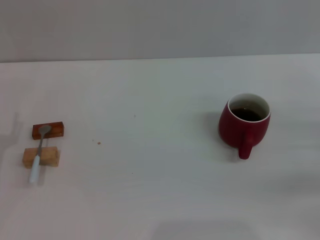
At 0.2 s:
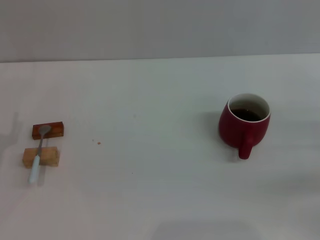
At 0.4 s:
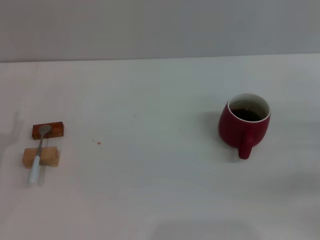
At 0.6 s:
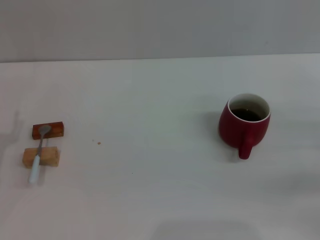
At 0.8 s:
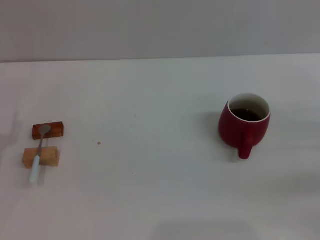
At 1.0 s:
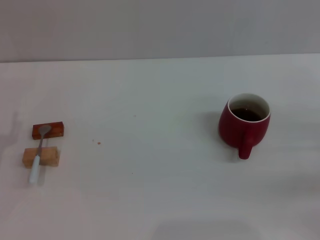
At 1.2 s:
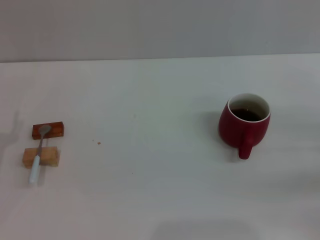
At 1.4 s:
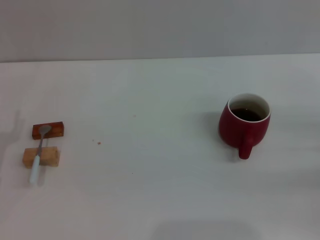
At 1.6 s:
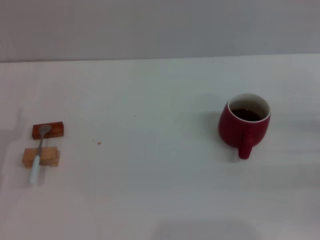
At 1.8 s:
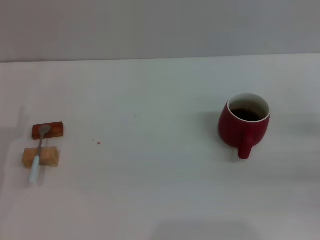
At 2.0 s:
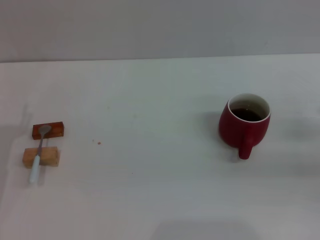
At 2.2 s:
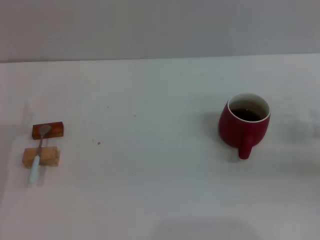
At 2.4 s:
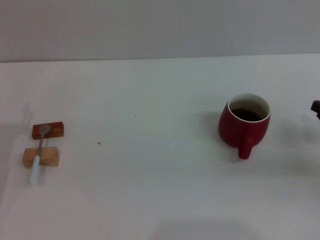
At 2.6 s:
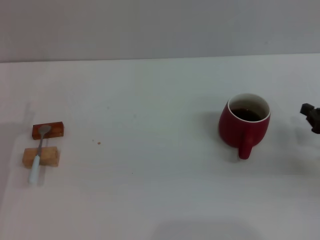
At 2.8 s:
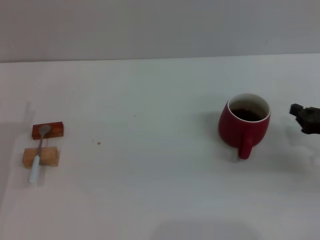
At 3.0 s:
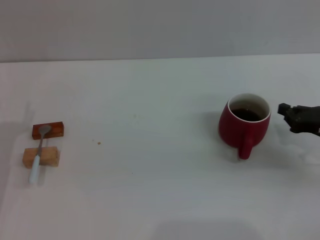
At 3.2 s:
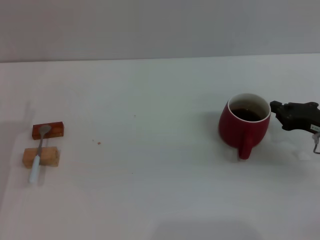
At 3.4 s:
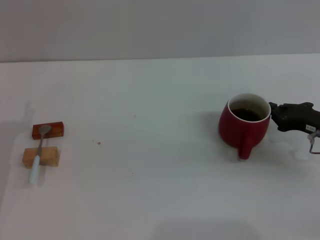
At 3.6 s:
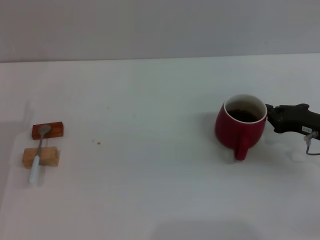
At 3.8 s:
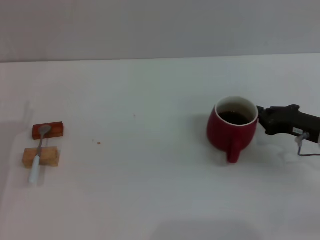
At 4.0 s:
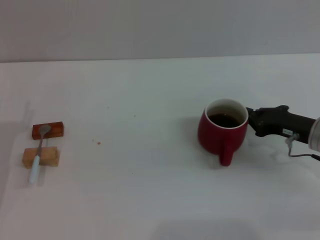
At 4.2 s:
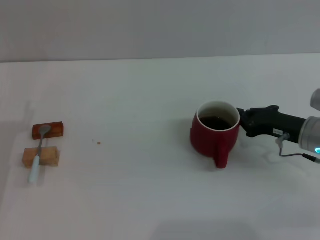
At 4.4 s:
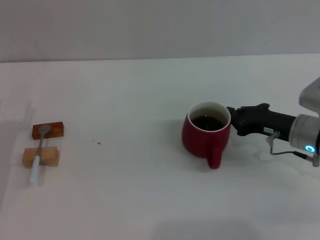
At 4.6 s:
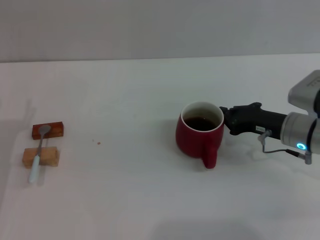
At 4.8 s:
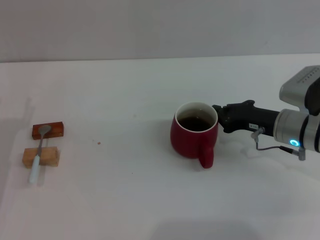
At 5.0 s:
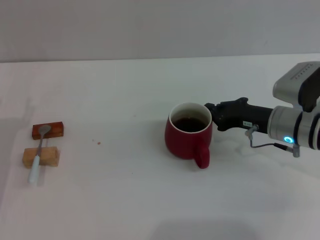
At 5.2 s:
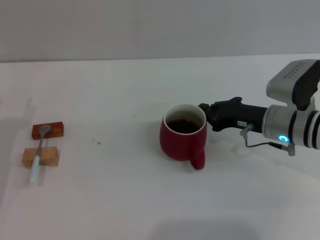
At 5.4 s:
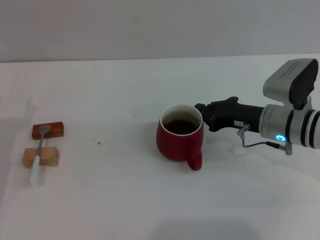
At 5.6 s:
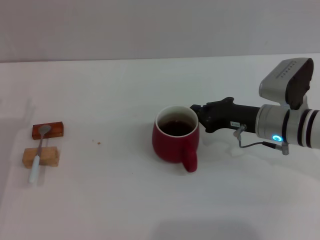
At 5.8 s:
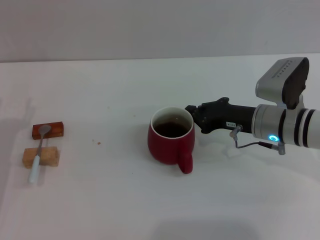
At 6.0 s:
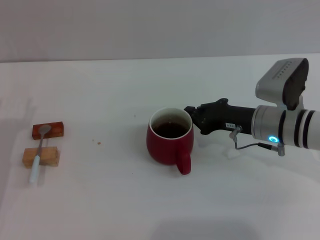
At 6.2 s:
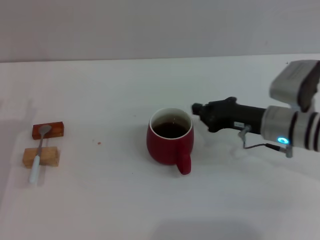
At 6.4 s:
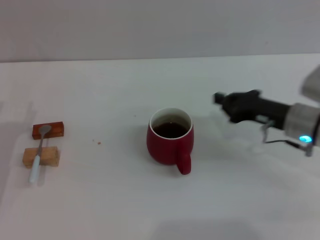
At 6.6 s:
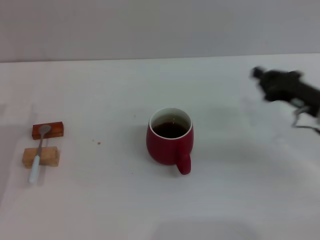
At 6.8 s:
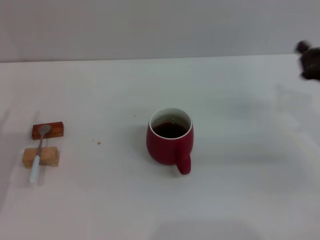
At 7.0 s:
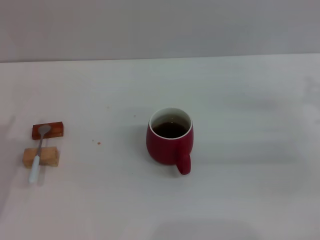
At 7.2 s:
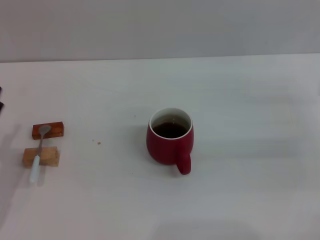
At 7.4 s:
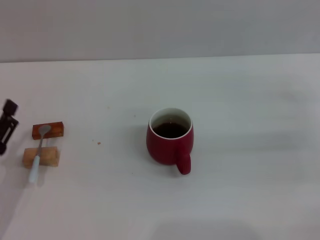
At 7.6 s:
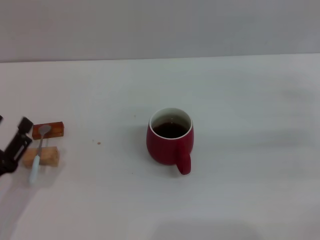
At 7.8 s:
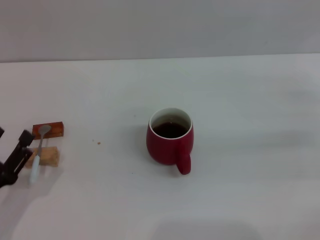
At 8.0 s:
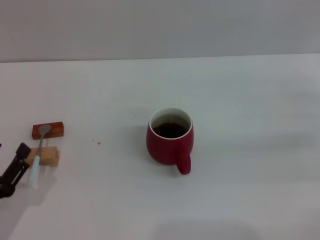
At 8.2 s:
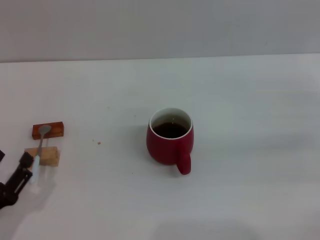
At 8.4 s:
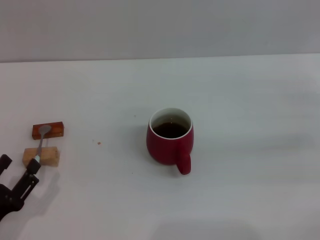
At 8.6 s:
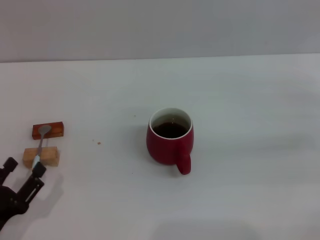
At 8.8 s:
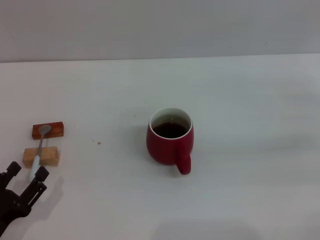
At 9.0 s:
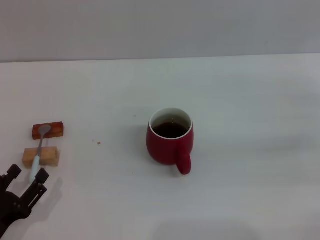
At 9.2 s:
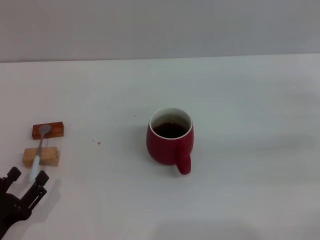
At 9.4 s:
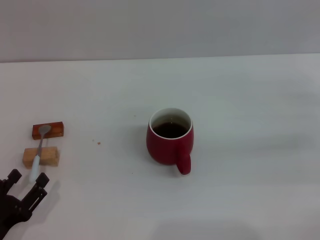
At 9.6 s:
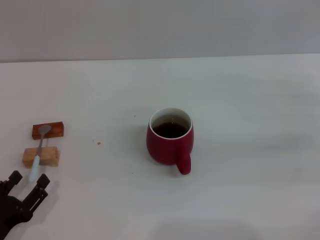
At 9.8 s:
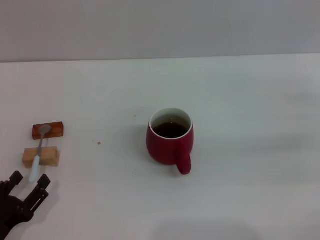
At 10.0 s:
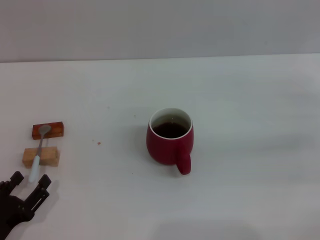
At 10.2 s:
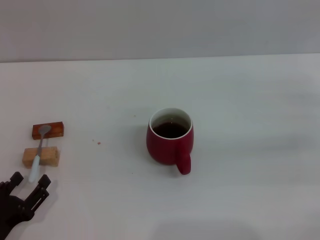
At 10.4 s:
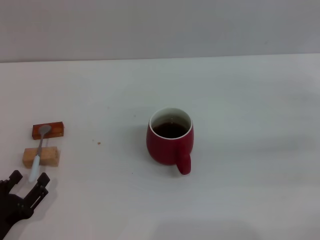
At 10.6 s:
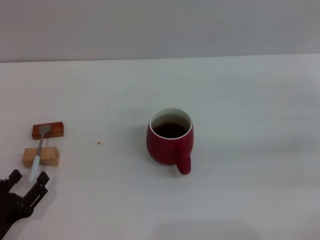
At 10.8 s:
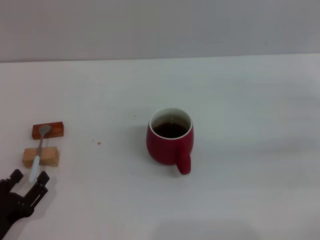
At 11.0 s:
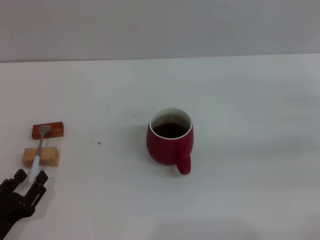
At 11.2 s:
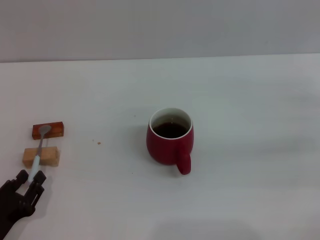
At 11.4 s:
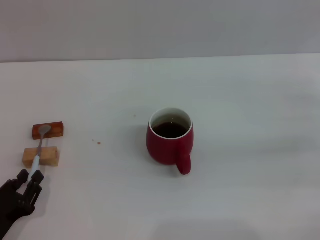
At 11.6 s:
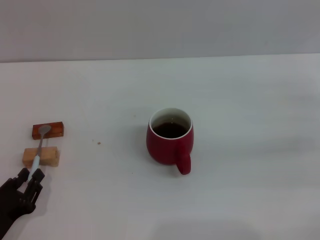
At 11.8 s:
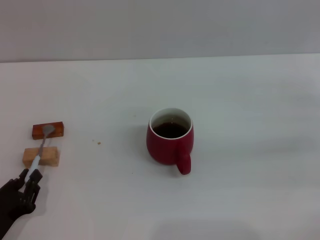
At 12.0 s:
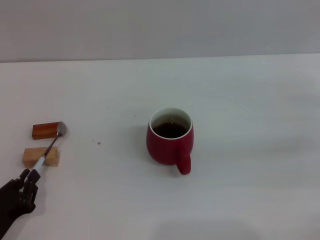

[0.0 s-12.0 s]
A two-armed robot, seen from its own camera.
Task of the whole recording: Move the red cup to the center, lift the blue spoon, stir it three times in the cup, and put the spoon into the cup.
Step, 0.0 to 6.2 s: Move the cup with coffee to the center of view with the right gripper.
1.6 to 3.0 s: The right gripper shifts roughly 5 cm to the left.
3.0 to 4.4 s: The right gripper is displaced to the left by about 10 cm.
4.4 to 6.0 s: The right gripper moves to the left, some 5 cm.
6.0 to 7.6 s: The right gripper travels to the right by roughly 20 cm, and opens its fingers; the left gripper moves backward and downward, approximately 10 cm.
7.6 to 10.4 s: The grippers make only small movements.
10.4 to 12.0 s: The left gripper closes its fingers.

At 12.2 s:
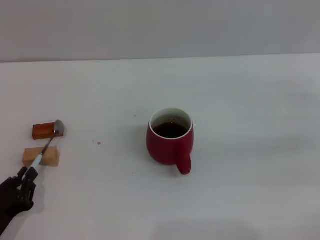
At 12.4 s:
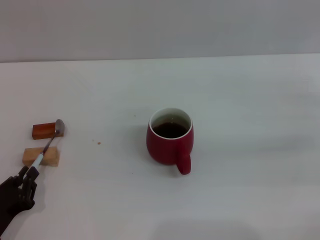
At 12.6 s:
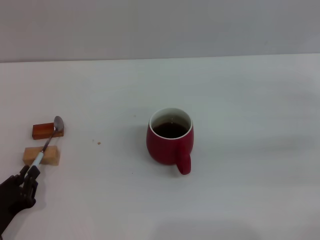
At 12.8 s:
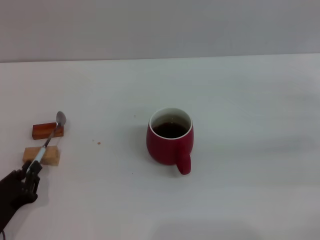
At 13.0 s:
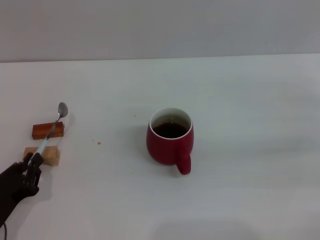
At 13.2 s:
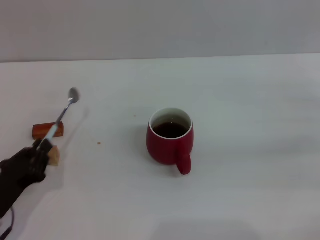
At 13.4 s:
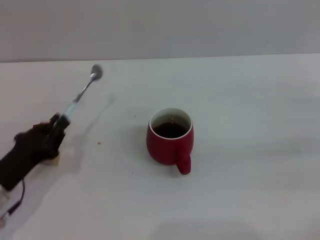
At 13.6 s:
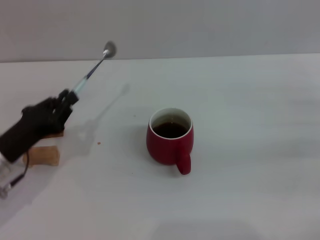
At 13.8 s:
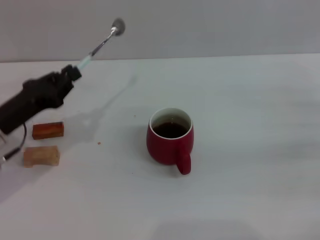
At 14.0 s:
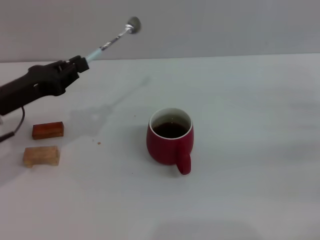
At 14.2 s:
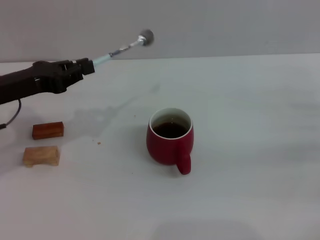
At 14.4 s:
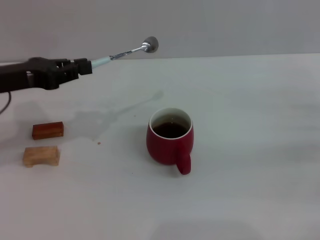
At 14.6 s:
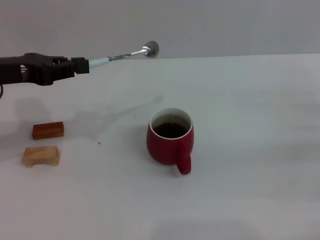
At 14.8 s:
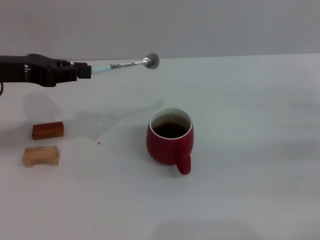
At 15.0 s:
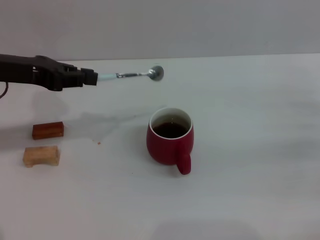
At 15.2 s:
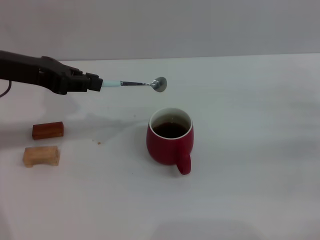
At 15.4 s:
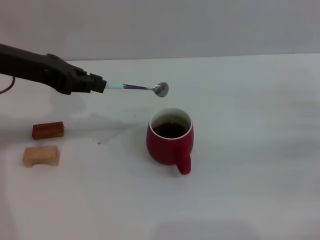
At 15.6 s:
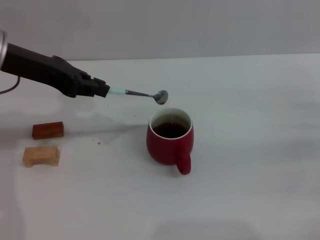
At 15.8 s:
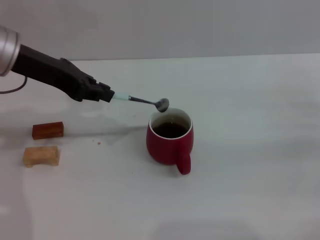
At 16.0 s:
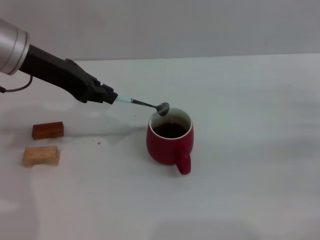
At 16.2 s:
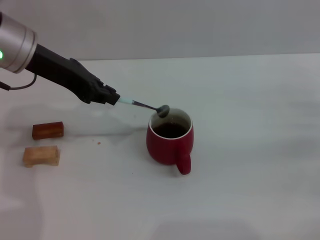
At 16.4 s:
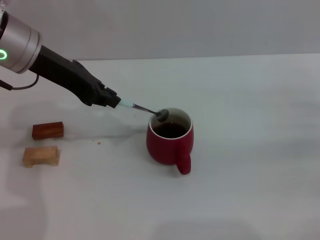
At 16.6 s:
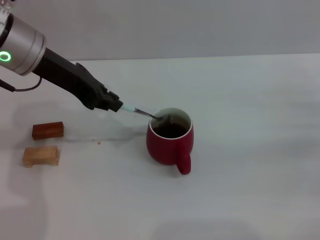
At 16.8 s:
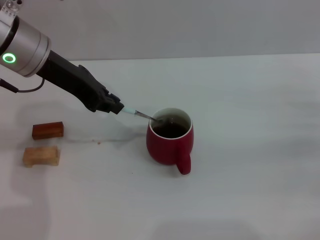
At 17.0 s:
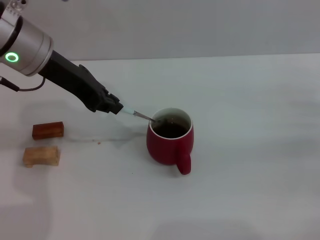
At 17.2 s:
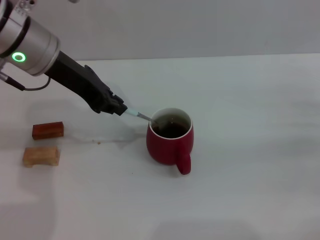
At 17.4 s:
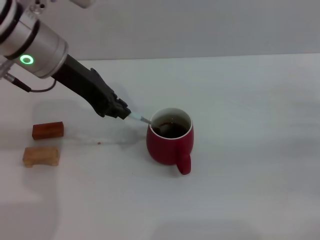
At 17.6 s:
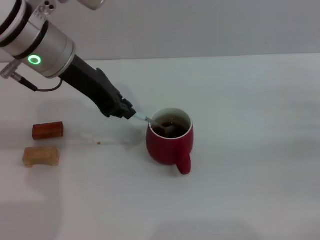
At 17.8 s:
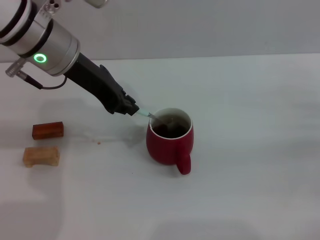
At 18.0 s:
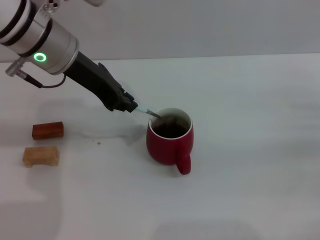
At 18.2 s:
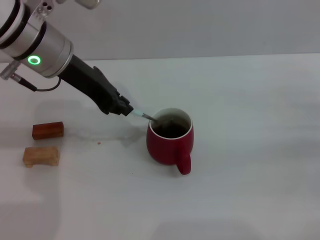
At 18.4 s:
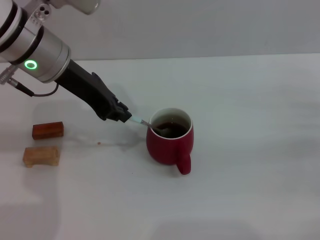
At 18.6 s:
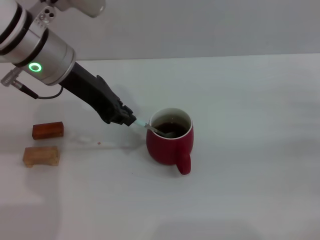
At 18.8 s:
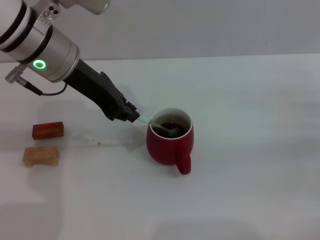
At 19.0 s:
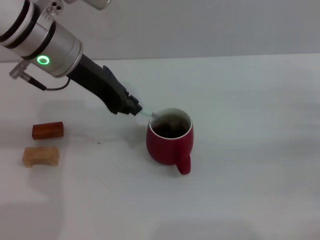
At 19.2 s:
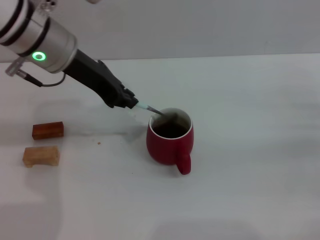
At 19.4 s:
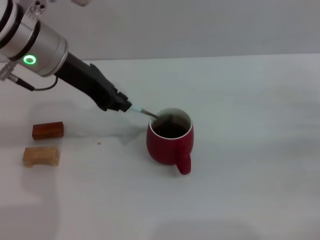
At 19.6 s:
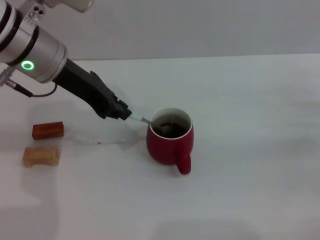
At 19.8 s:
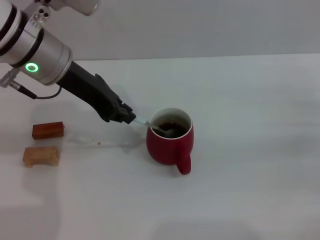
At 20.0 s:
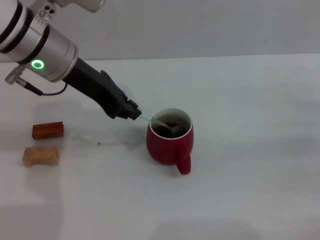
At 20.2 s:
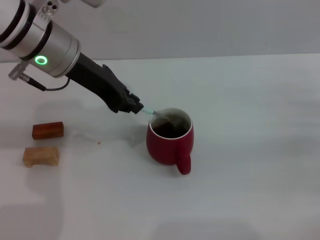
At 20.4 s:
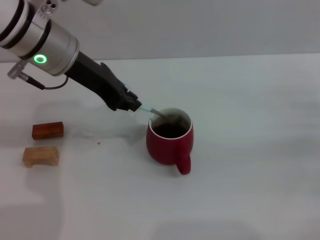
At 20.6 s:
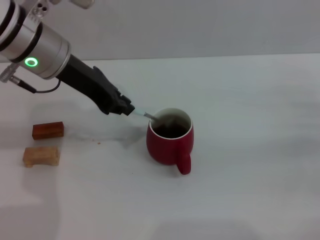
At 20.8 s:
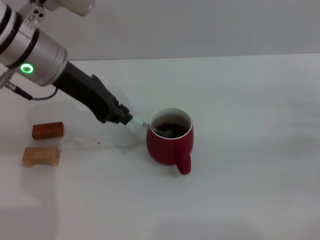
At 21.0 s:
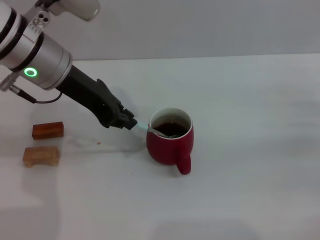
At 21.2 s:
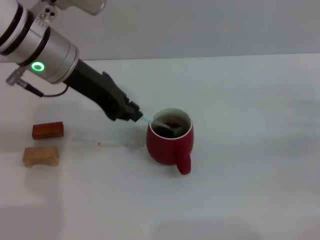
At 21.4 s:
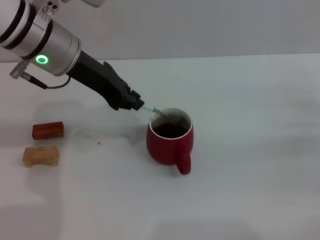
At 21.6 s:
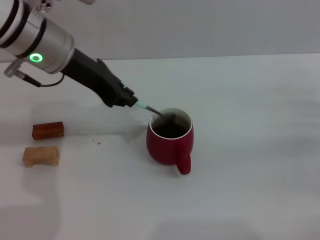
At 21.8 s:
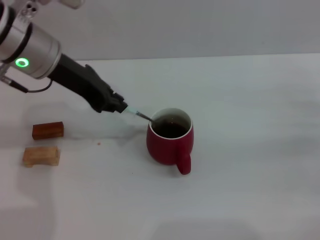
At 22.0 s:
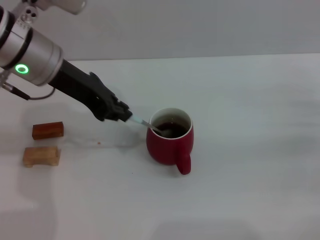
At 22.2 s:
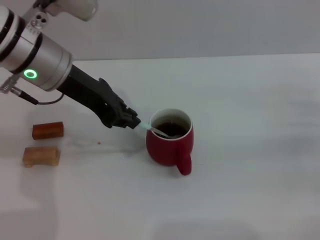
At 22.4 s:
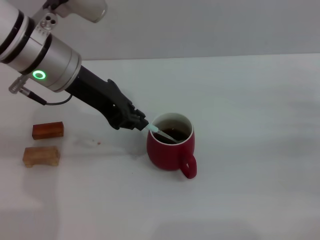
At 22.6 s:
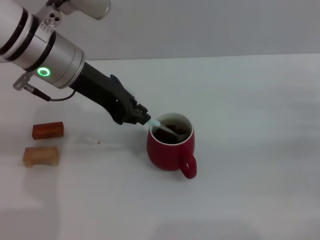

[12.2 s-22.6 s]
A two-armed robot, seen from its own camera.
Task of the whole recording: Move the red cup to the center, lift the blue spoon, stir it three times in the cup, and put the spoon into the cup.
12.2 to 13.6 s: The left gripper moves forward and upward, about 15 cm.
13.6 to 15.2 s: The left gripper goes roughly 20 cm upward and forward.
15.2 to 16.6 s: The left gripper moves to the right, roughly 5 cm.
16.6 to 18.2 s: The grippers move only a little.
18.2 to 19.6 s: Neither gripper changes place.
19.6 to 22.6 s: The grippers stay close to where they were, moving slightly.
